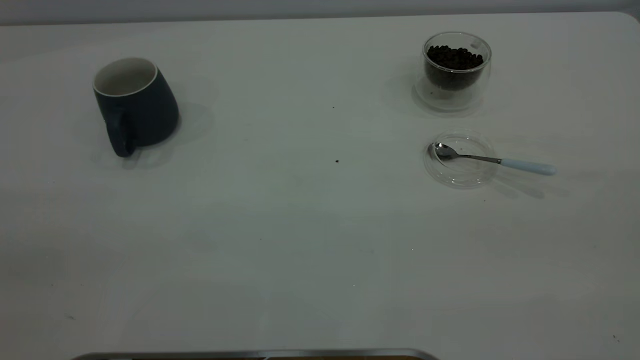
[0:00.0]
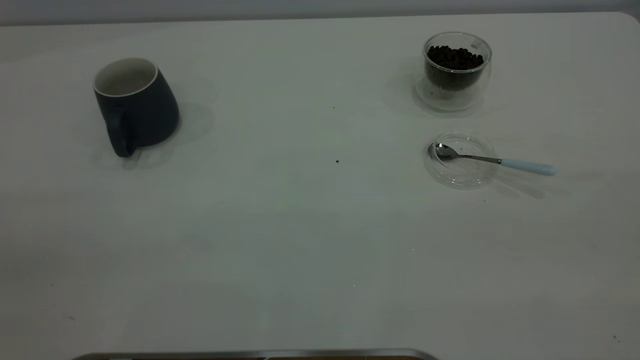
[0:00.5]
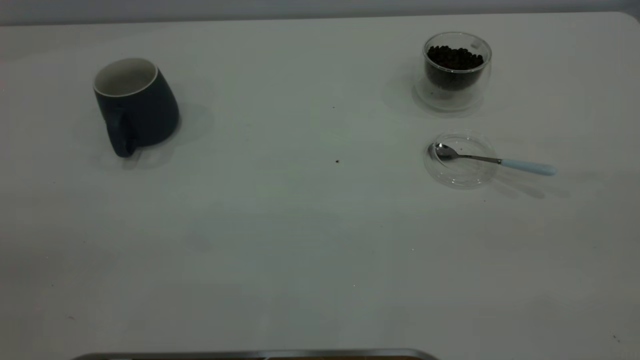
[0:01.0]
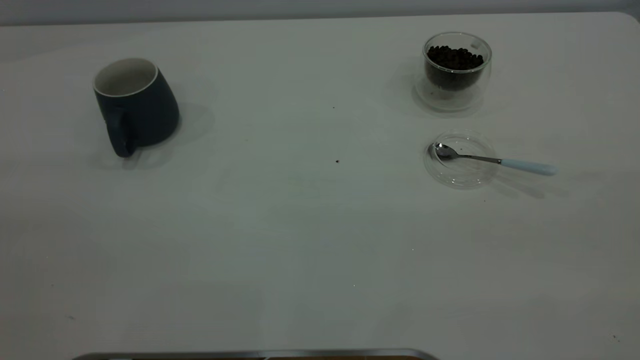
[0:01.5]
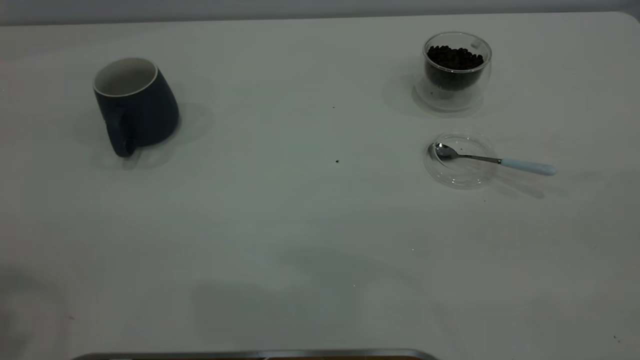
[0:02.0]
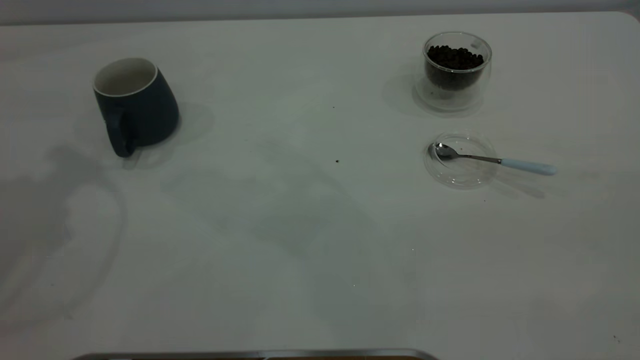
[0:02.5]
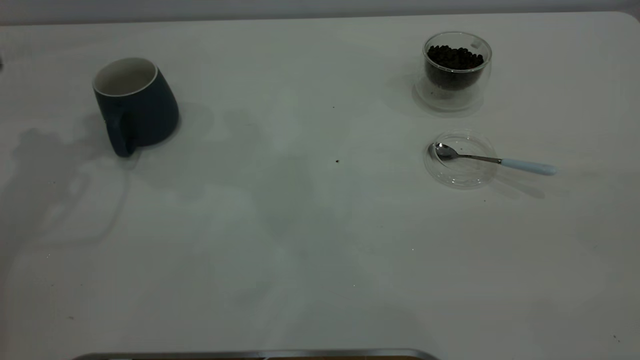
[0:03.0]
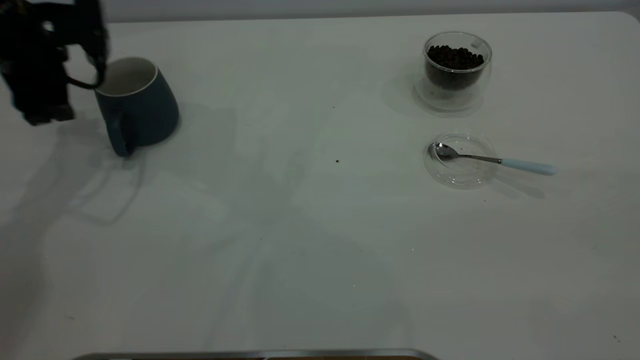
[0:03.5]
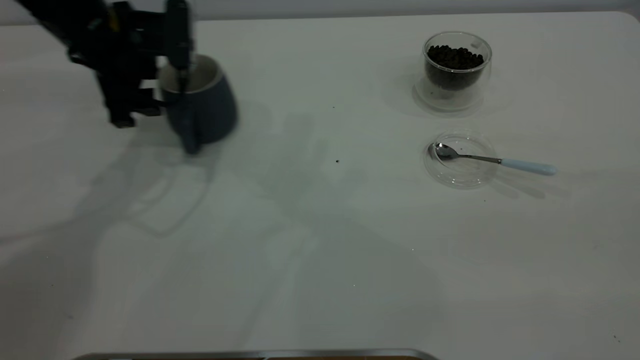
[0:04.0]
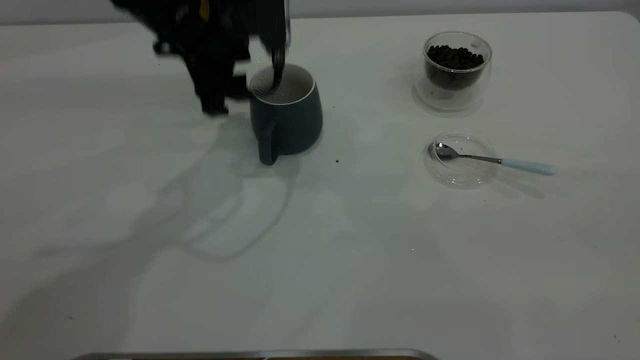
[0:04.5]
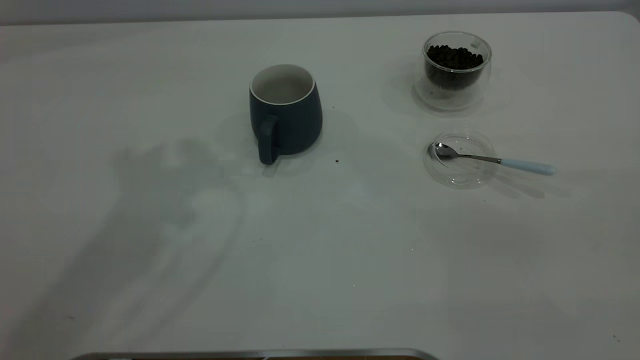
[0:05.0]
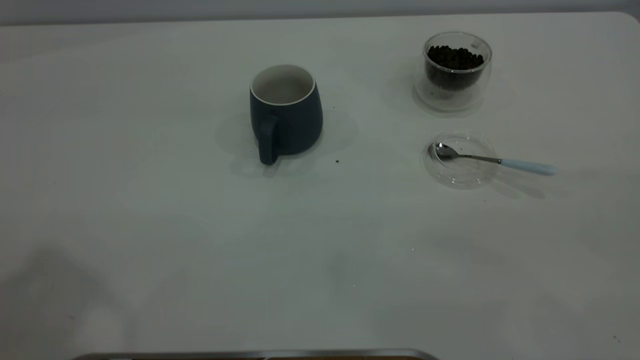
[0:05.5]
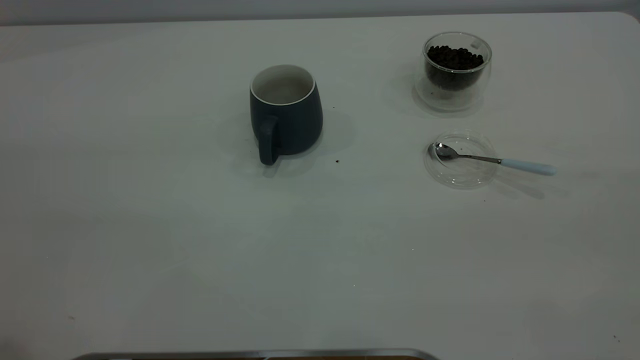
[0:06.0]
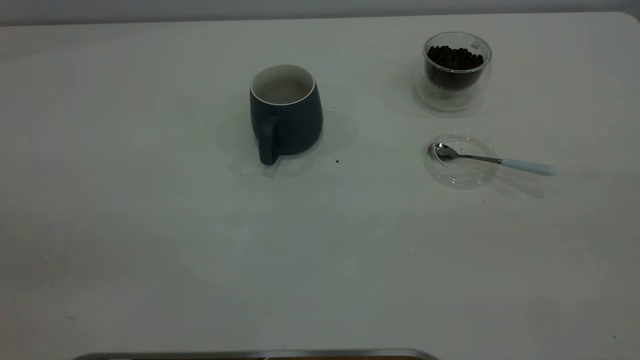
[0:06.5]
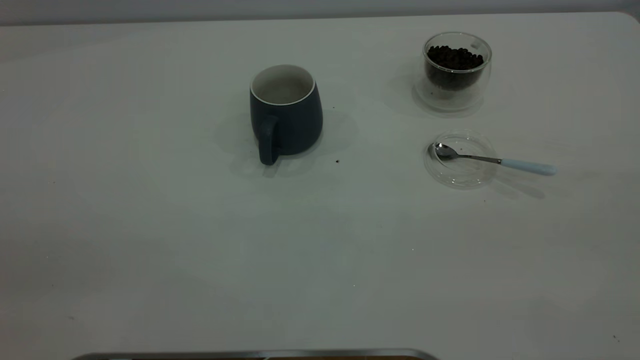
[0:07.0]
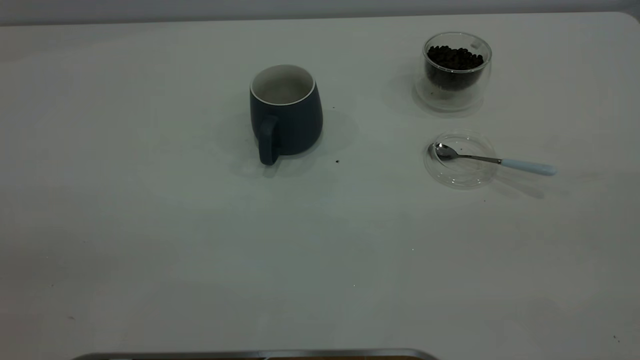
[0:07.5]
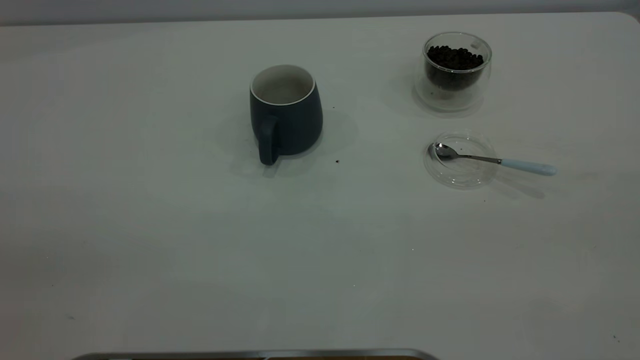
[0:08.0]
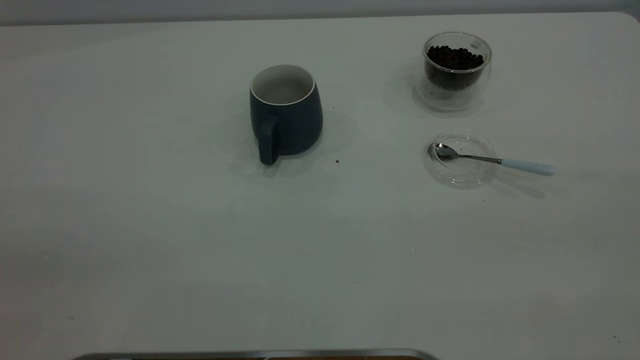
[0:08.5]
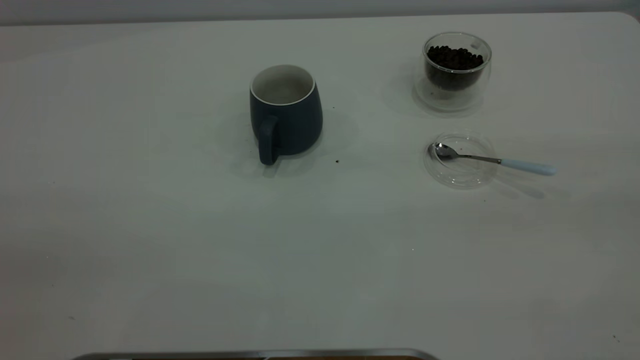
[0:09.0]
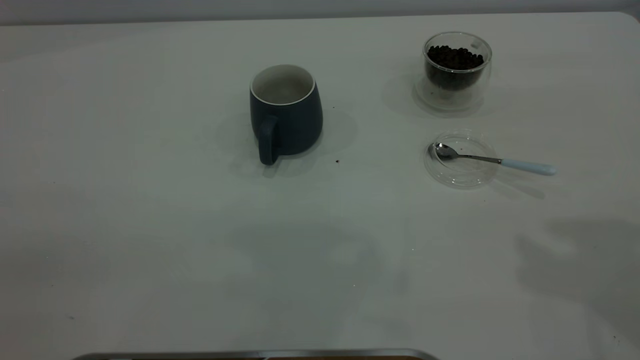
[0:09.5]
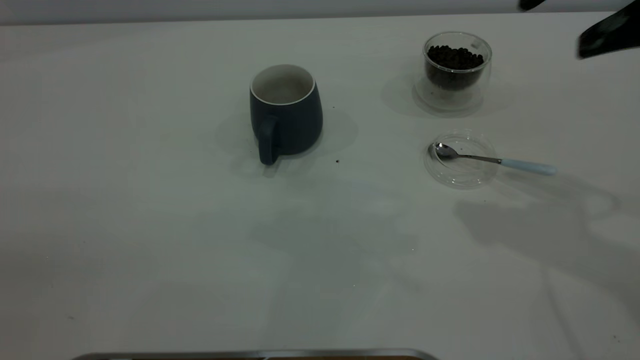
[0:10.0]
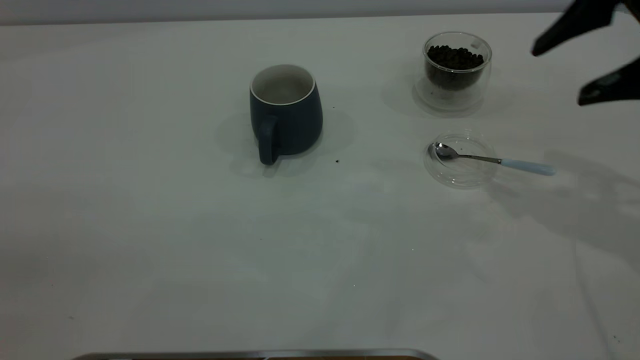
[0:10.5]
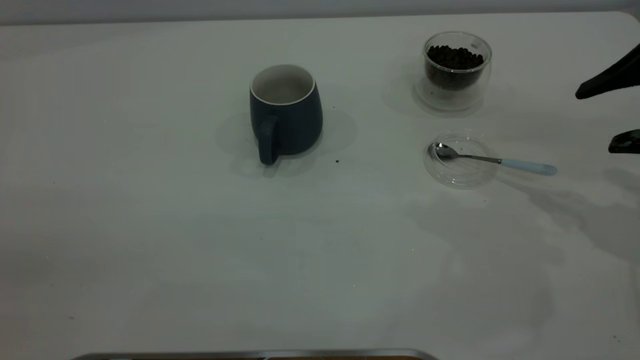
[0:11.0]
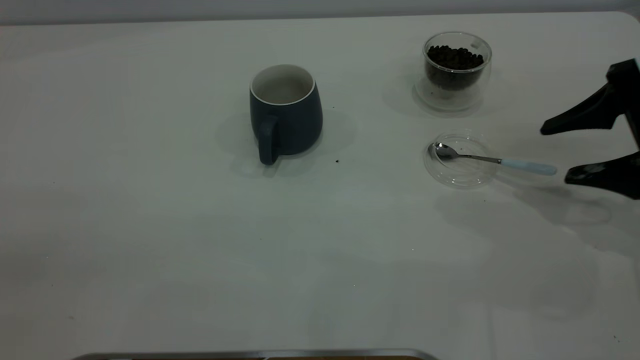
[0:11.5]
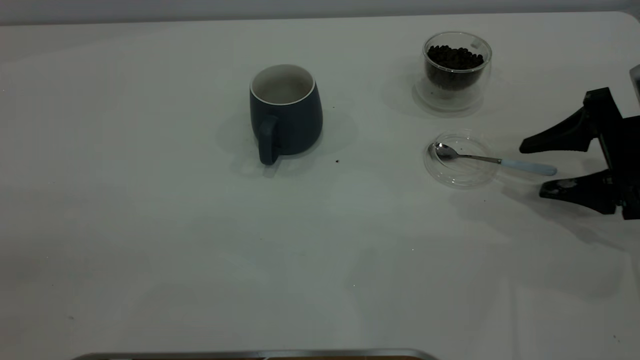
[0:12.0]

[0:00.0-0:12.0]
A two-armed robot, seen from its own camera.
Task of the whole recording: the left gripper place the grey cup in the center of the table, the right gripper take the blue spoon from the cup lid and scoop out the coffee beans from the coffee cup and put them into the grey cup, the right gripper put the spoon back into the cup lid.
Step, 0:00.0 to 0:04.5: Move the cup to the center of view.
0:02.0 to 0:04.0: The left gripper moves downward and forward, roughly 35 cm.
0:04.0 to 0:06.0: The left gripper shifts some 40 cm backward and upward.
0:08.0 to 0:10.0: The right gripper goes roughly 30 cm forward.
0:10.0 to 0:12.0: The right gripper heads downward, covering some 20 cm.

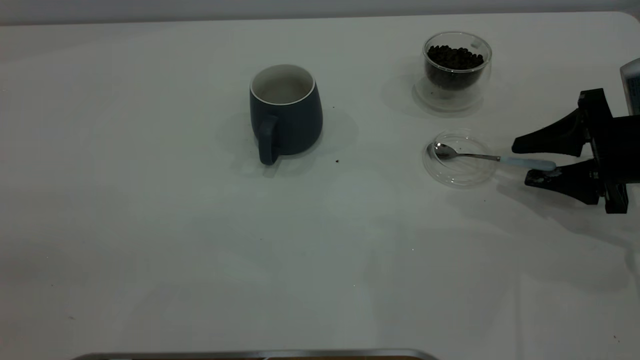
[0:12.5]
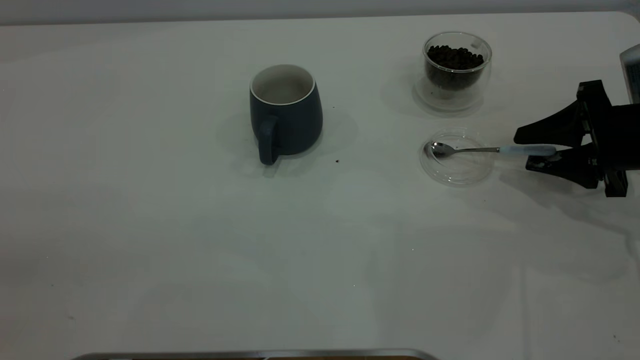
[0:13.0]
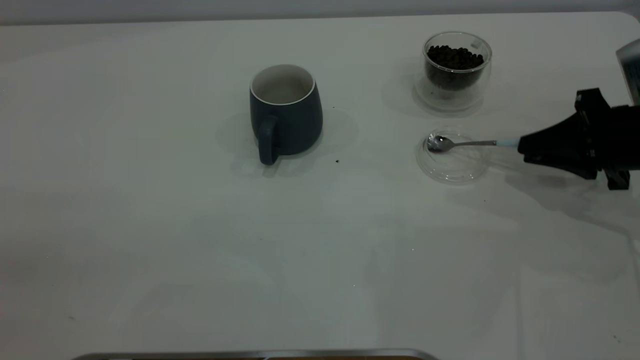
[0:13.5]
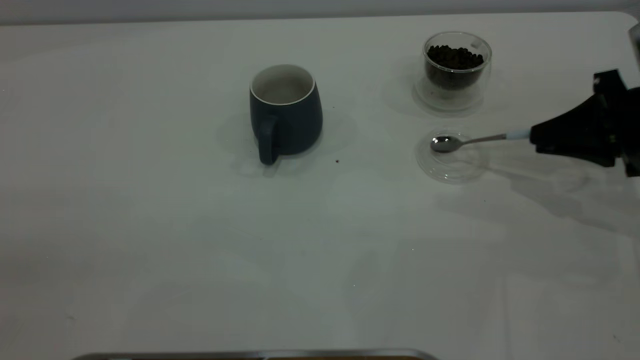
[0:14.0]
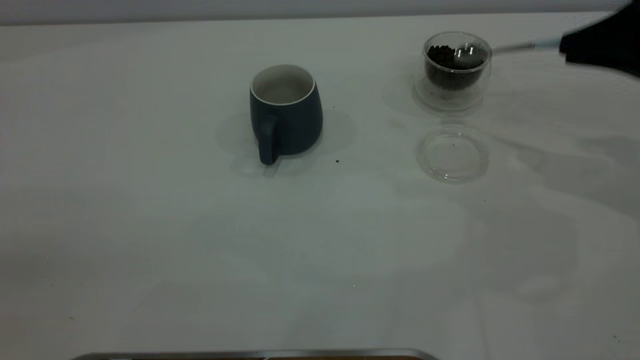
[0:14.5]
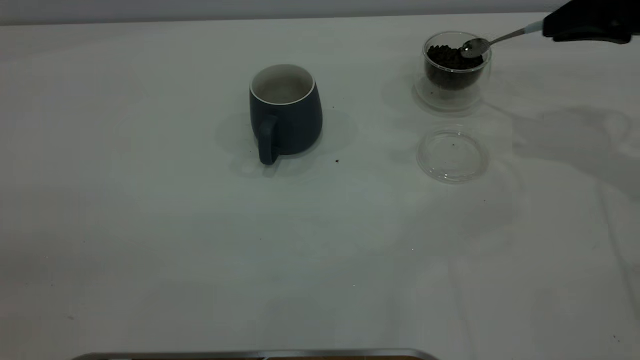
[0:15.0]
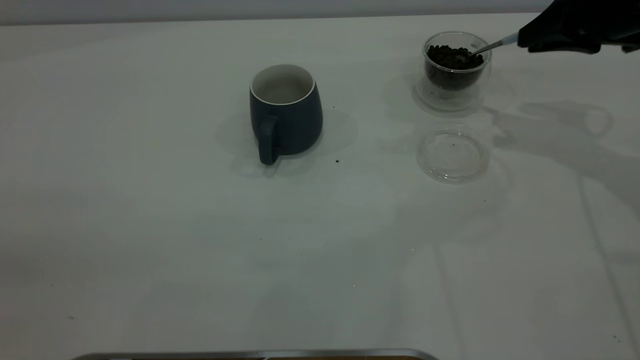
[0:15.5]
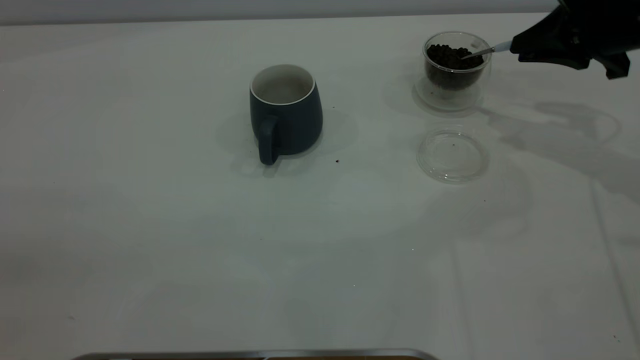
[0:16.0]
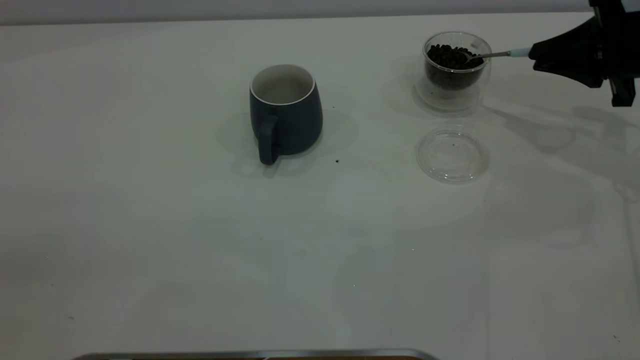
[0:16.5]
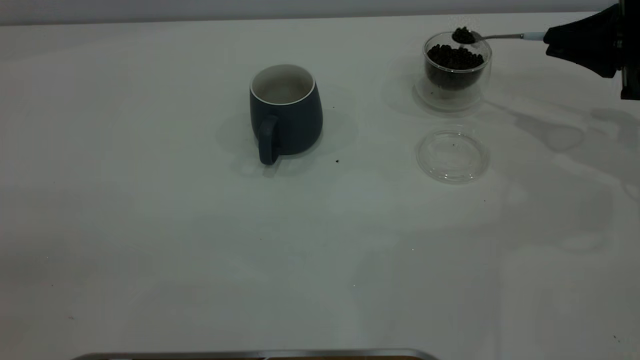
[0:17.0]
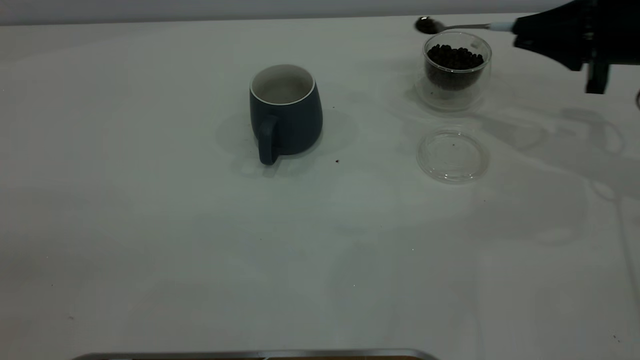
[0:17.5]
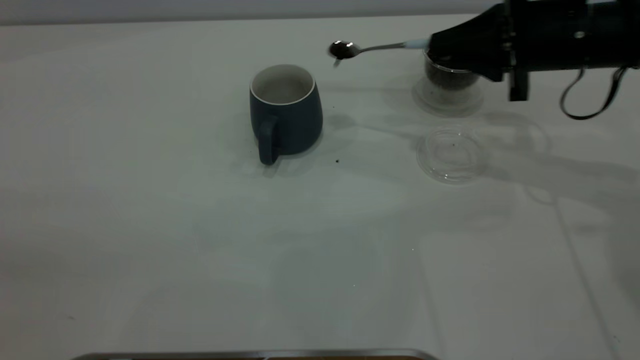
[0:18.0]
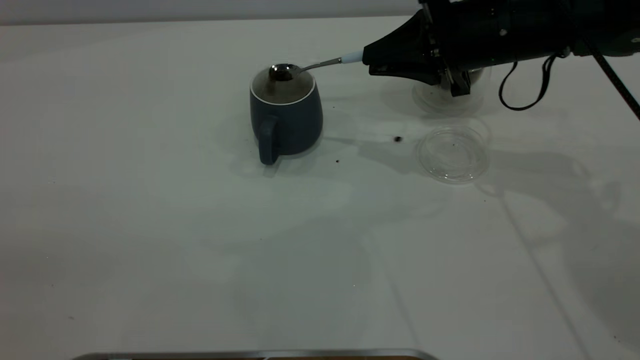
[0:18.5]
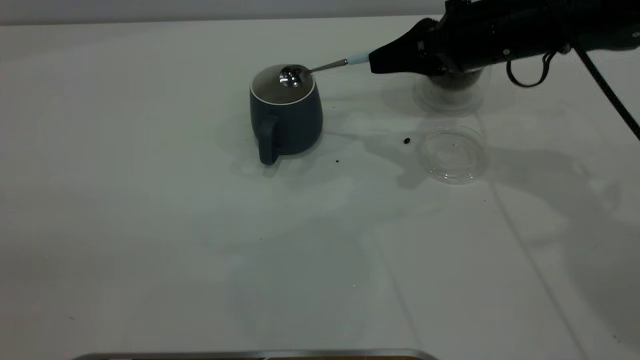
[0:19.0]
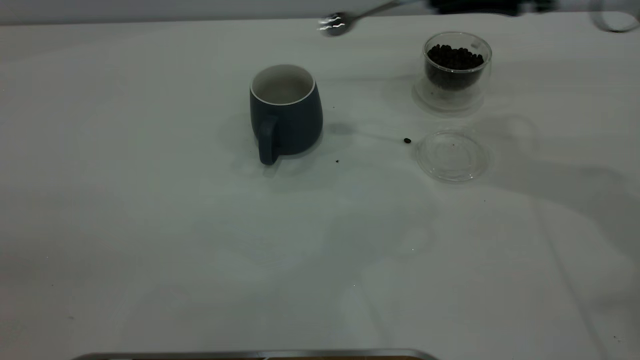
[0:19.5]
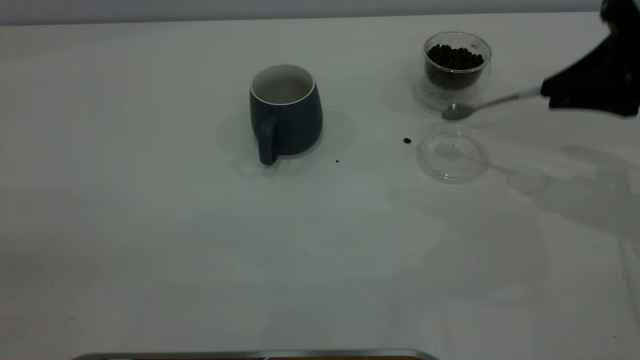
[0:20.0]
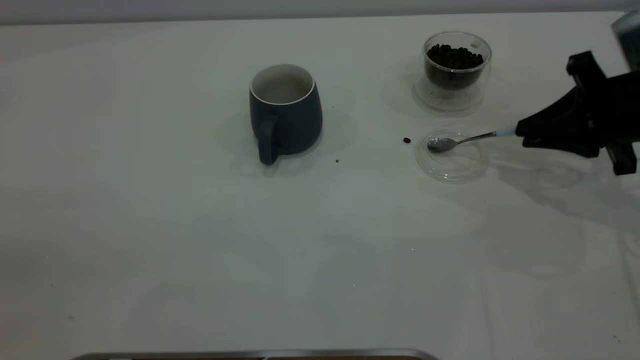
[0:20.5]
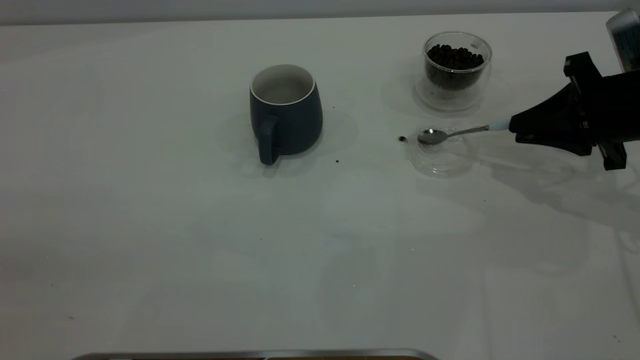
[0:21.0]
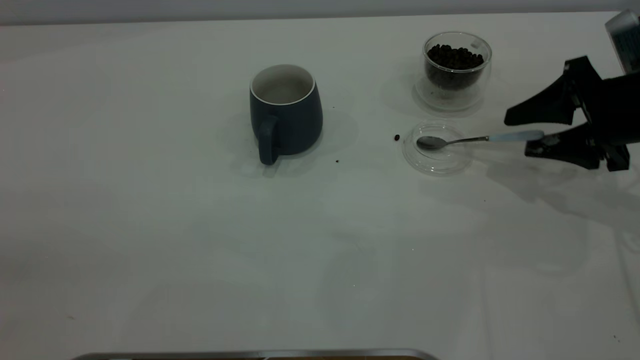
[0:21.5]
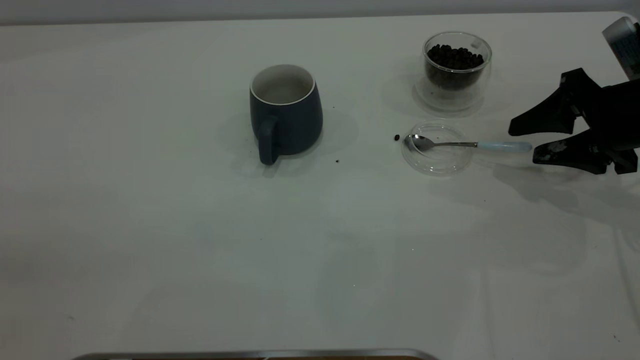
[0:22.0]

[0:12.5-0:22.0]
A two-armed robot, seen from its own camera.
Task of the whole recording: the left gripper place the grey cup in the center of the table, the right gripper take the blue spoon from the cup lid and scoop out the coffee beans from the coffee cup and put them into the grey cup, the right gripper put the spoon back into the cup lid.
Step, 0:14.5 to 0:19.0: Scoop a spoonful of beans into the cup.
0:12.5 to 0:14.5: The right gripper moves upward, approximately 10 cm, and closes its fingers.
0:14.5 to 0:16.5: The right gripper goes some 5 cm downward.
0:16.5 to 0:18.0: The right gripper is displaced to the left by about 10 cm.
0:18.0 to 0:20.0: The right gripper heads to the right and backward, covering about 10 cm.
0:20.0 to 0:22.0: The right gripper goes some 5 cm downward, and opens.
